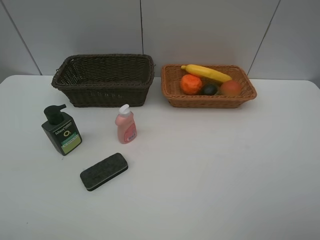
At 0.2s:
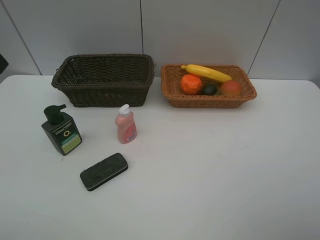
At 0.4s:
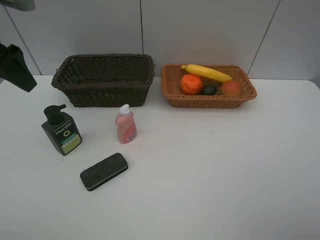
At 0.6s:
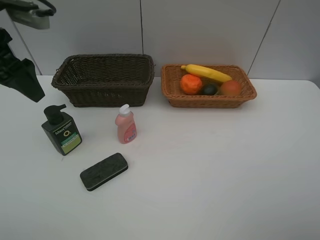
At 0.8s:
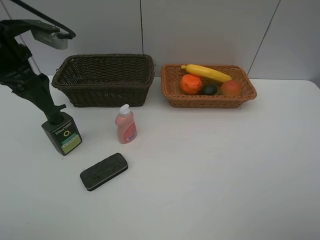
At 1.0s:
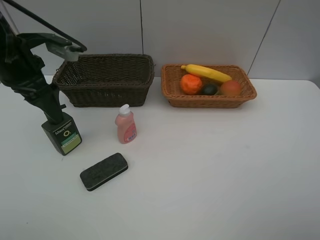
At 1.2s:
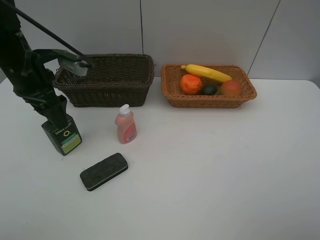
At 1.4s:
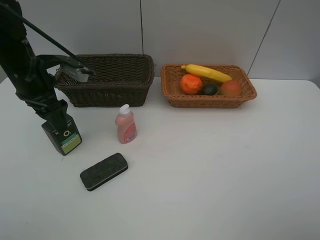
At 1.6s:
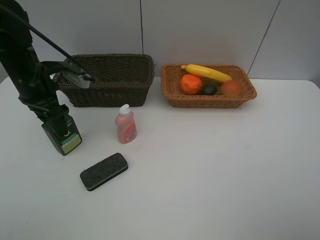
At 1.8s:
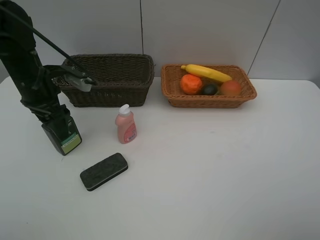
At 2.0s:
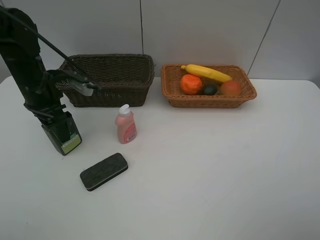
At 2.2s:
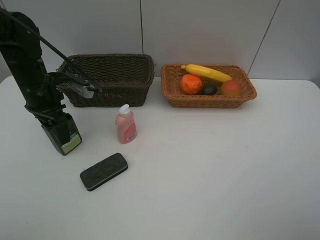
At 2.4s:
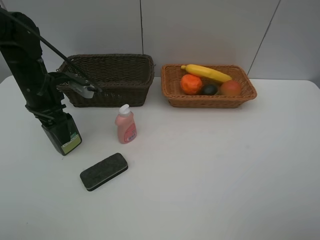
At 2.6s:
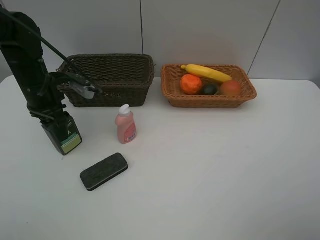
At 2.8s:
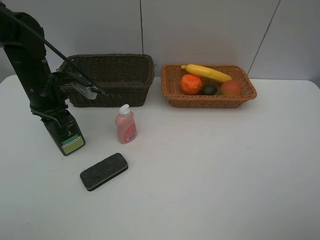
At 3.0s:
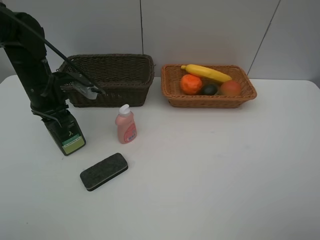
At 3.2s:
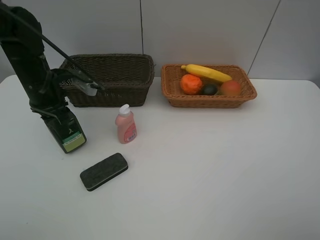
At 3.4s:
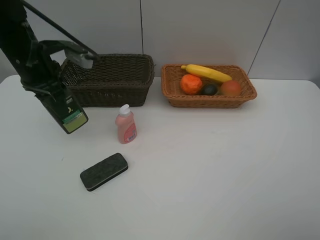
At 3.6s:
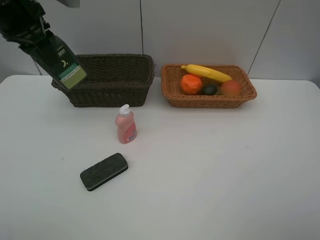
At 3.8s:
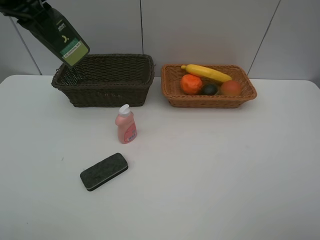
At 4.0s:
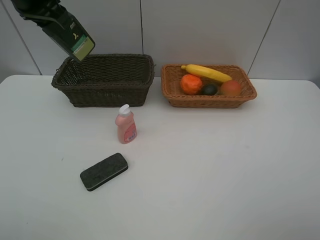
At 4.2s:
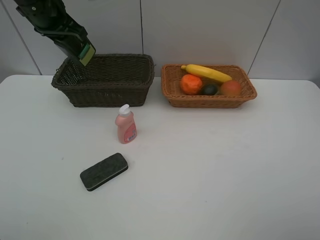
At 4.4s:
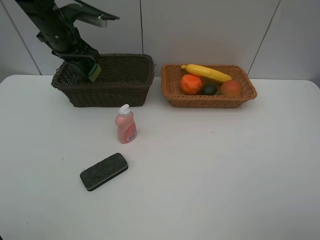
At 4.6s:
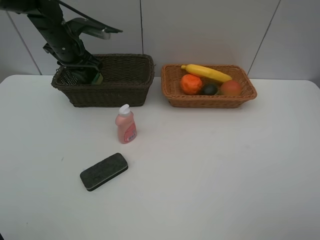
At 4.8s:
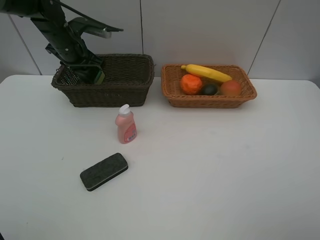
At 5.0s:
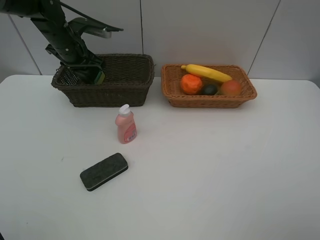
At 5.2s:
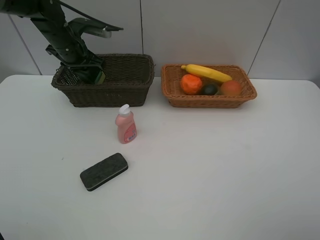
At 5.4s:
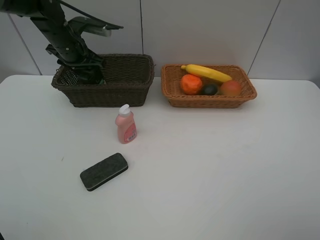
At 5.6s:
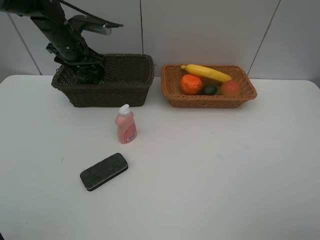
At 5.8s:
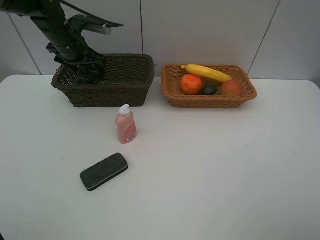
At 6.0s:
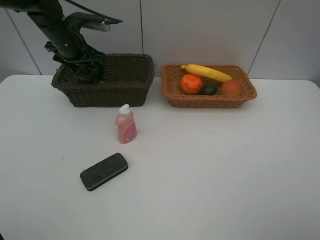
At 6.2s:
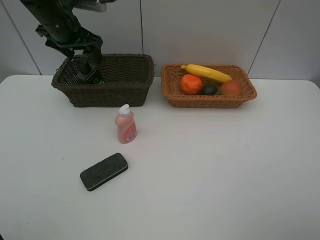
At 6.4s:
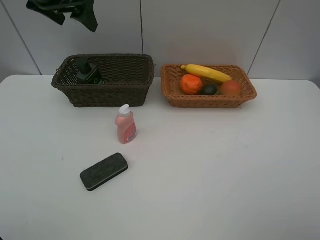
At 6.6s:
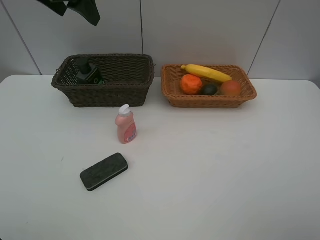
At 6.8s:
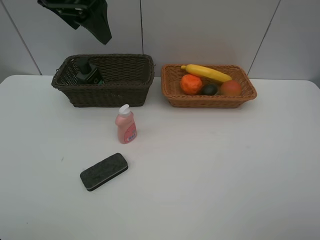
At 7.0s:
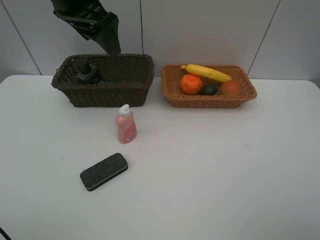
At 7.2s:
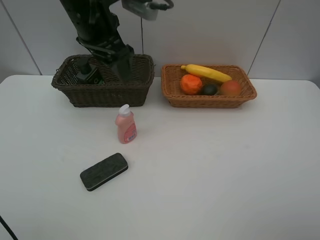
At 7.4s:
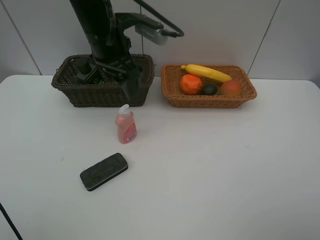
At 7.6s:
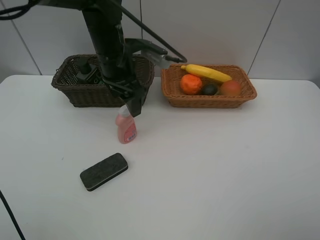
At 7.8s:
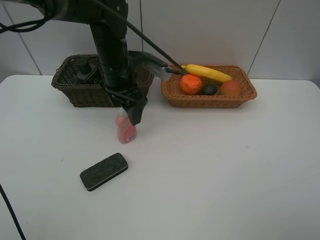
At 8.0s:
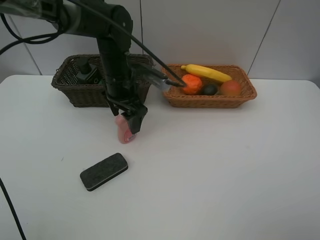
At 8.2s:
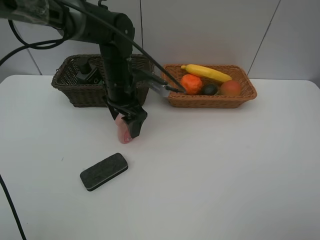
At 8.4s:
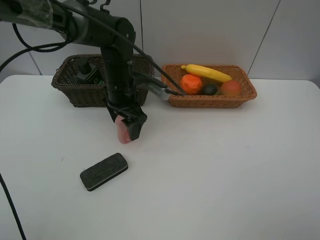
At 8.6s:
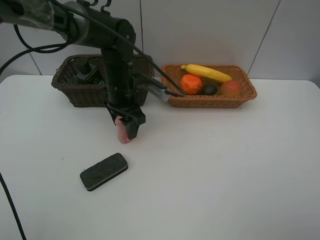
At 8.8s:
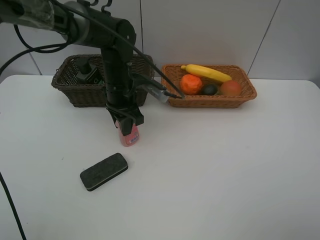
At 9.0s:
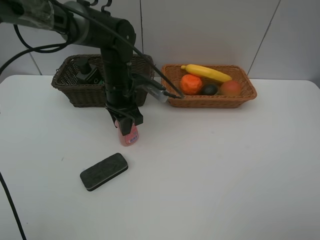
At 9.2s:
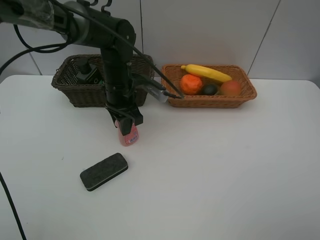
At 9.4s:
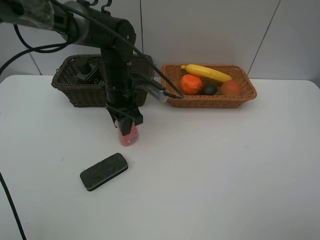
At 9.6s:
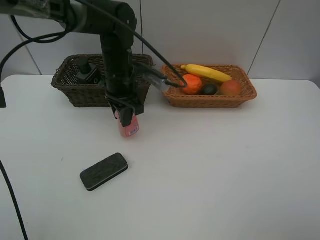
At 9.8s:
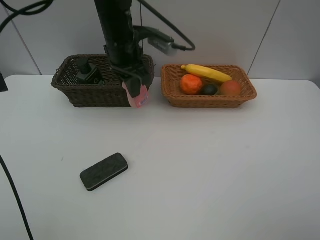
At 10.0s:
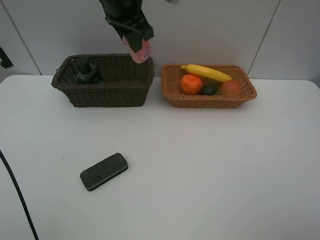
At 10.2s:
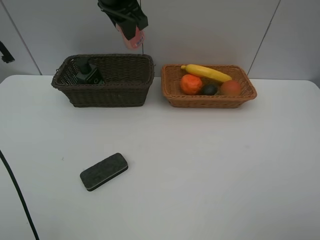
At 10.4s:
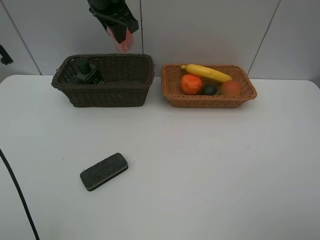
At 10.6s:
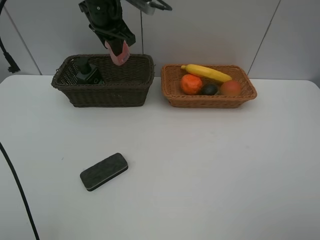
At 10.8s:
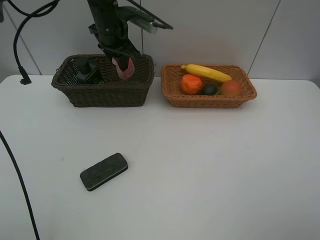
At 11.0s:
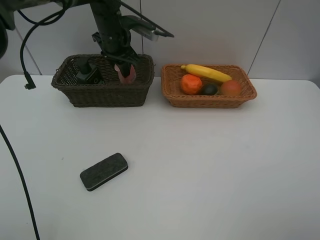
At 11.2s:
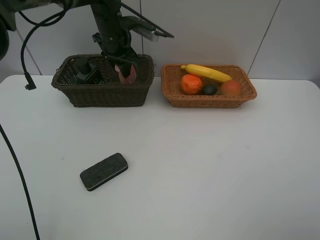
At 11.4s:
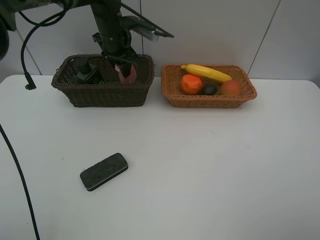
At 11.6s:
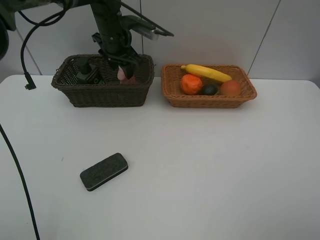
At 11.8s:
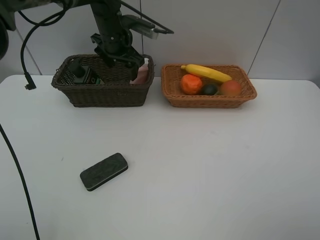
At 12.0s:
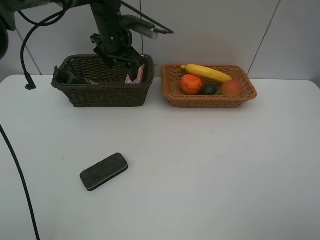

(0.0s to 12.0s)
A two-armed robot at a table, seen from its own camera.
Task of the whole recording: Place multiple objects separately in different baskets.
Step, 0.0s - 3.2s: Pick up the hard facial cleanser with left gripper.
Step, 3.4s - 6.2s: Place the hard facial cleanser in the dark basket with left gripper.
Step, 6.4s - 9.6s: Pick up the laundry detergent with left gripper.
0.0s - 1.6s: The left gripper is displaced downward and forward by roughly 25 cm.
1.6s - 3.0s: The left gripper closes up.
3.0s - 4.4s: The left gripper is displaced forward by some 10 cm, and goes upward and returns, approximately 20 cm each way.
4.4s - 6.0s: The left gripper opens its fingers.
6.0s - 7.6s: The left gripper shifts roughly 15 cm to the right and backward, and moves roughly 15 cm upward and comes back.
7.6s - 9.0s: The left gripper moves downward, roughly 5 cm, and closes its fingers.
9.0s - 10.4s: The left gripper moves upward, some 15 cm.
10.4s - 12.0s: The left gripper travels downward by roughly 10 cm, and opens.

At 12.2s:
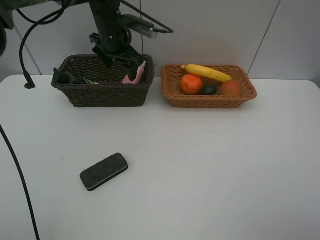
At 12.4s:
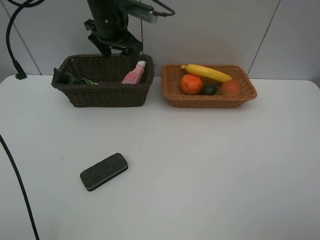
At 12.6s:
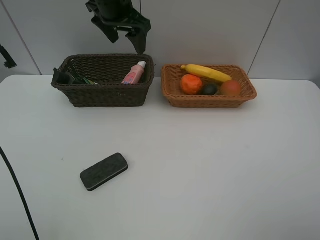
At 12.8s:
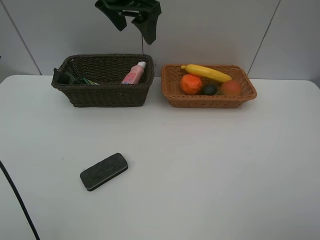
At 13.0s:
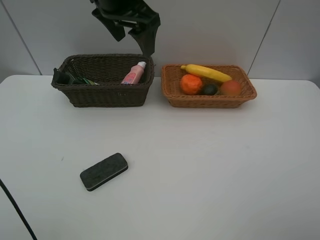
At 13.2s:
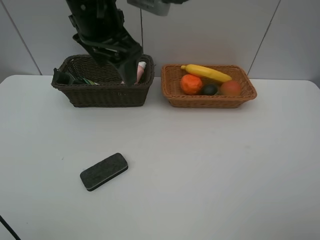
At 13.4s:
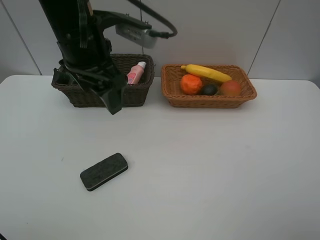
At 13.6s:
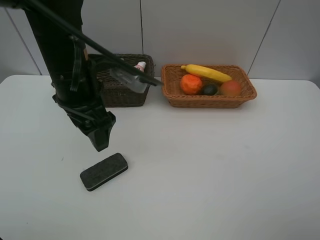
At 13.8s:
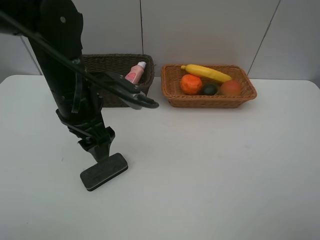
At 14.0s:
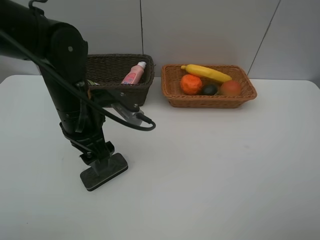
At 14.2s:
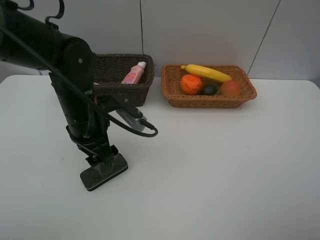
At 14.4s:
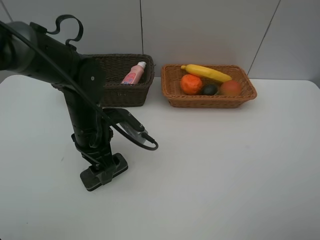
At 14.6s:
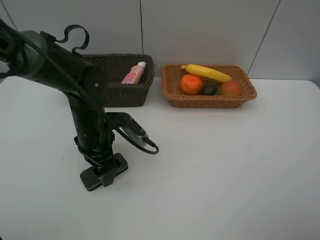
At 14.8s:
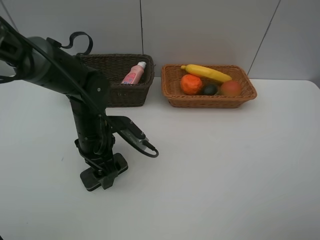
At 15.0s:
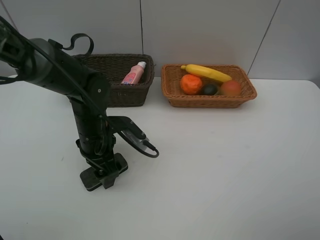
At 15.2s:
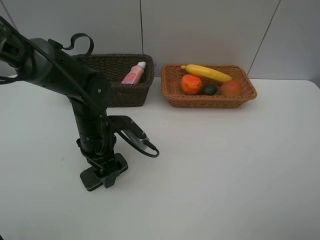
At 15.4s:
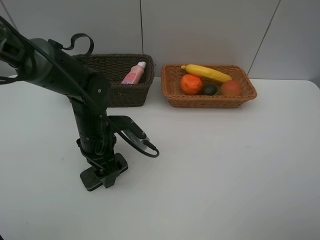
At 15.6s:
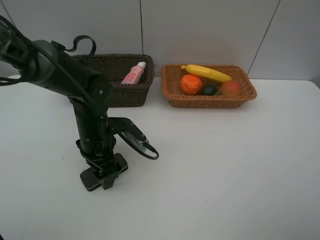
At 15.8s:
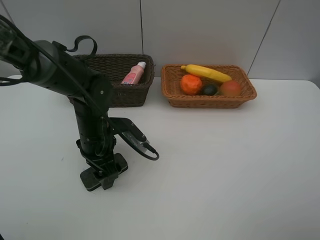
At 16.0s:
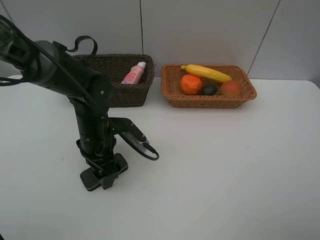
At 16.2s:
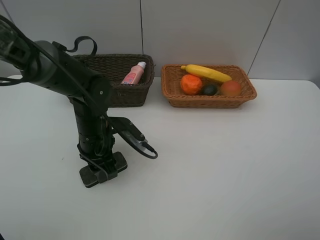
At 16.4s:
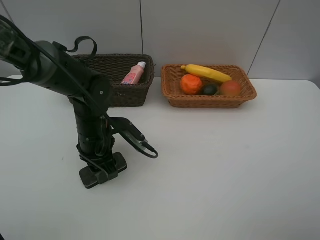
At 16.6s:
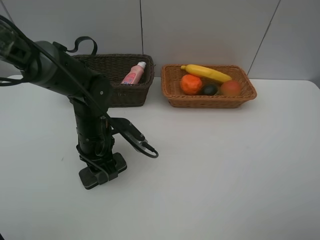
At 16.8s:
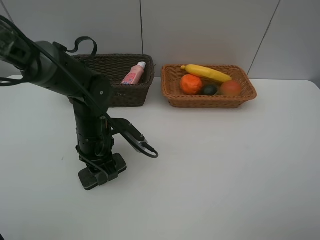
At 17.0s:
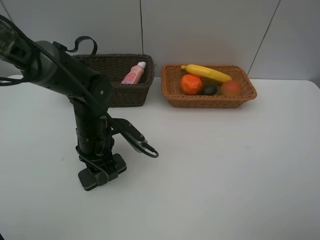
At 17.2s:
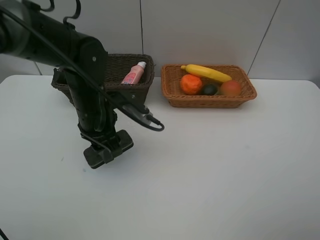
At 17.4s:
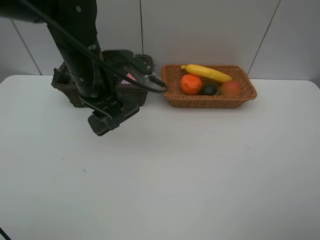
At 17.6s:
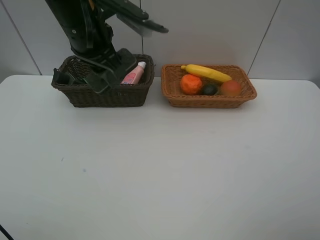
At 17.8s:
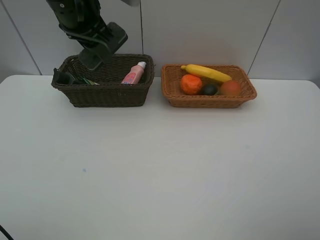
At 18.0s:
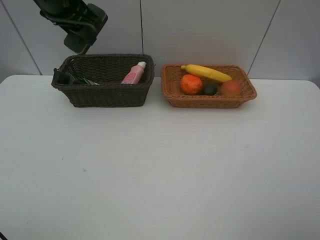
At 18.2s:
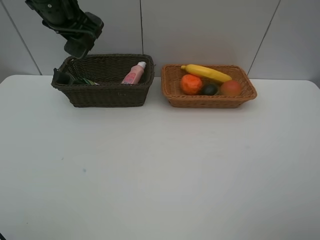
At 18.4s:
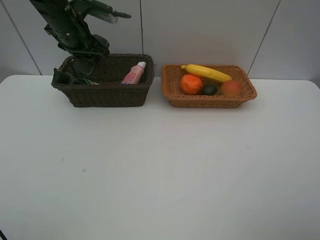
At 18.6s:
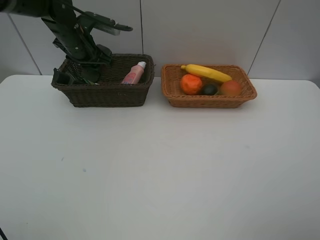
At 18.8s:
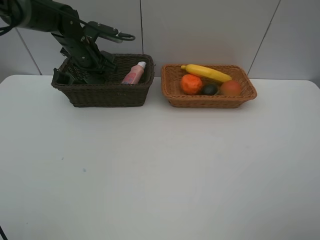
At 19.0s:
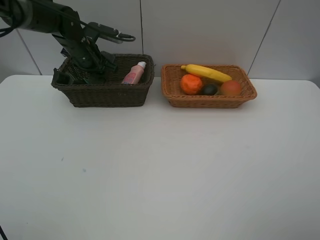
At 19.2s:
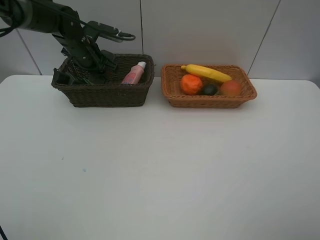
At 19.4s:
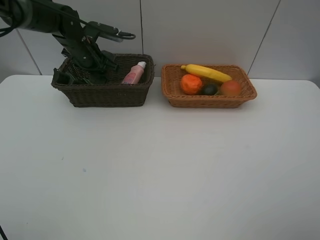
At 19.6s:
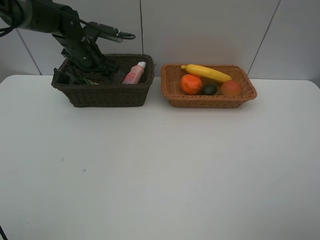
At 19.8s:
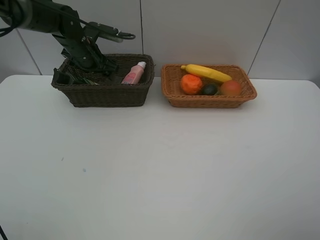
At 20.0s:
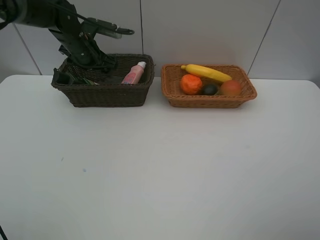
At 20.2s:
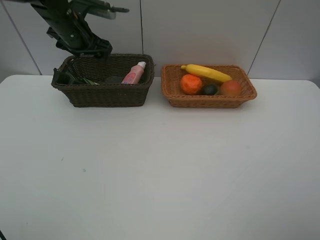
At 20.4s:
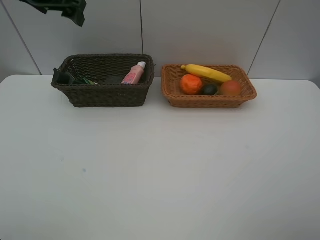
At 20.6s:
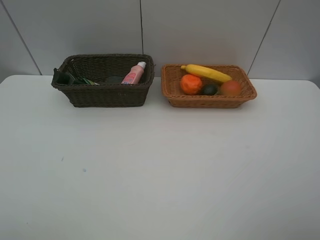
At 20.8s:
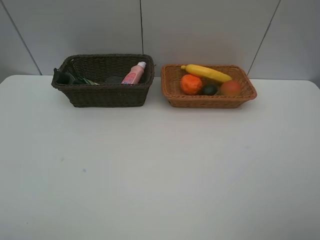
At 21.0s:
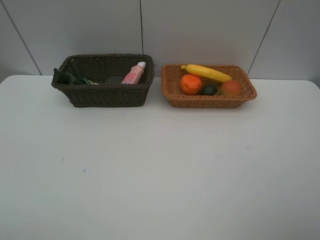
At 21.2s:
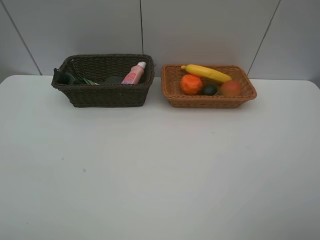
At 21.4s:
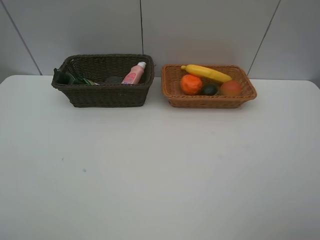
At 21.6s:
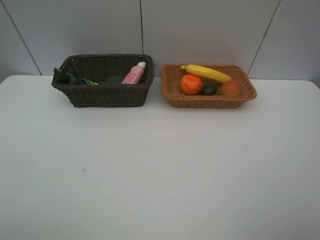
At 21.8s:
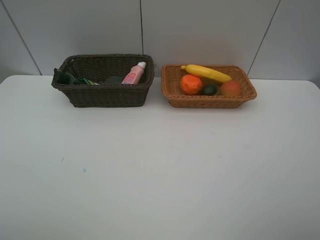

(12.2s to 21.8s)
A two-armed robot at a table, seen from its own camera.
Task of the whole recording: Place multiple objects separately in different baskets.
Step, 12.2s - 17.0s: Pick up blackboard eraser with left gripper.
Step, 17.2s - 20.0s: Place the blackboard eraser in the dark basket with left gripper.
12.2s - 13.8s: The left gripper moves backward, some 20 cm.
13.8s - 15.4s: The left gripper moves downward, some 10 cm.
15.4s - 17.0s: The left gripper closes its fingers.
17.0s - 18.6s: The left gripper goes roughly 20 cm forward and upward.
18.6s - 20.2s: The left gripper opens its fingers.
20.2s - 21.8s: The left gripper travels backward by about 40 cm.
